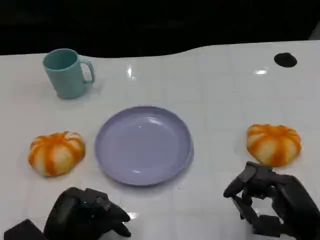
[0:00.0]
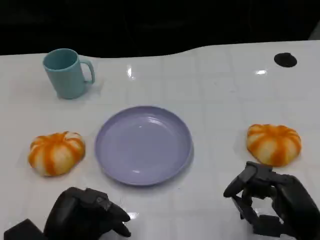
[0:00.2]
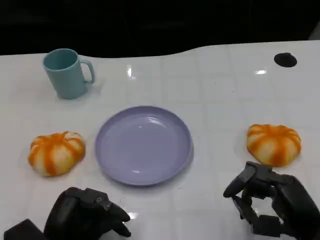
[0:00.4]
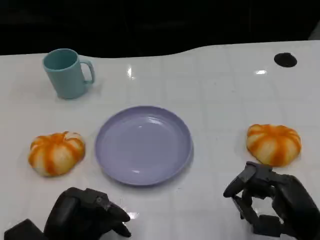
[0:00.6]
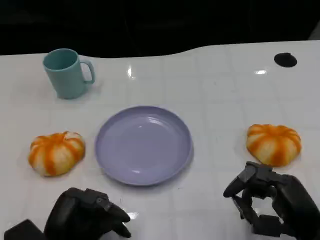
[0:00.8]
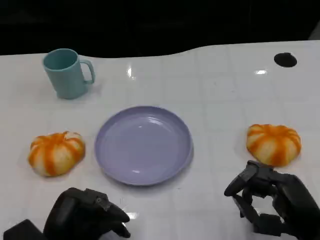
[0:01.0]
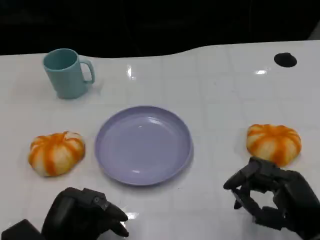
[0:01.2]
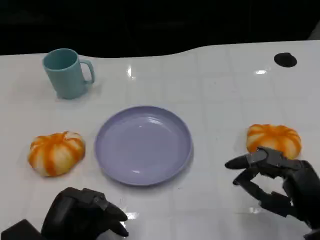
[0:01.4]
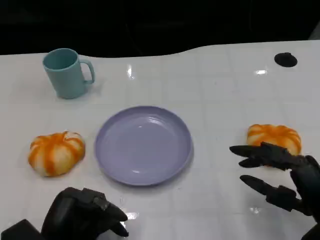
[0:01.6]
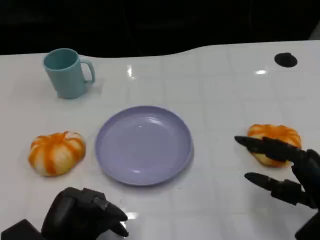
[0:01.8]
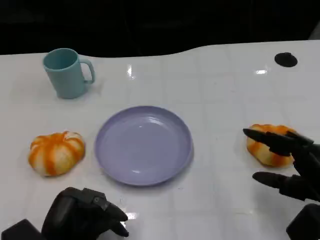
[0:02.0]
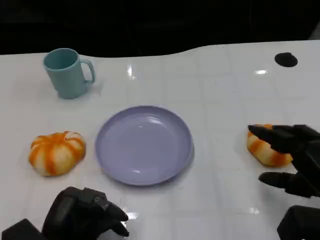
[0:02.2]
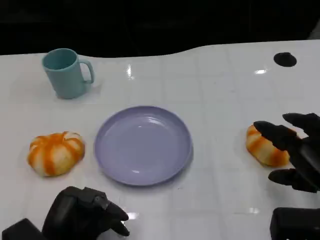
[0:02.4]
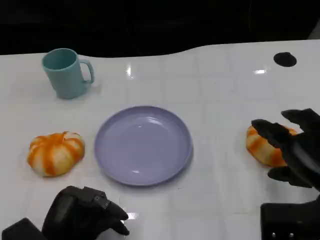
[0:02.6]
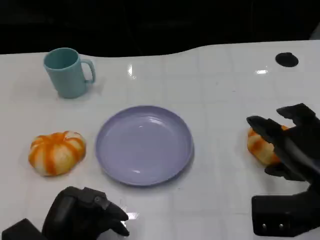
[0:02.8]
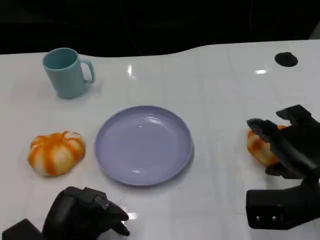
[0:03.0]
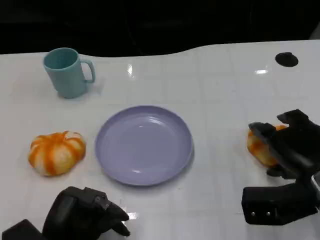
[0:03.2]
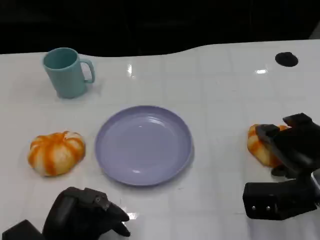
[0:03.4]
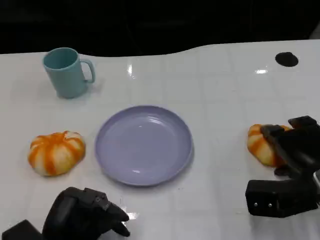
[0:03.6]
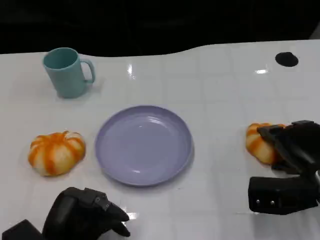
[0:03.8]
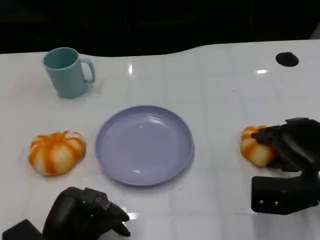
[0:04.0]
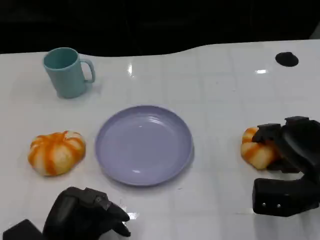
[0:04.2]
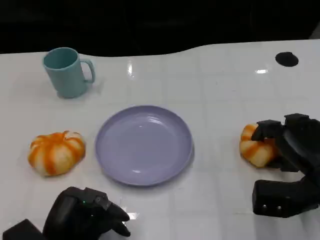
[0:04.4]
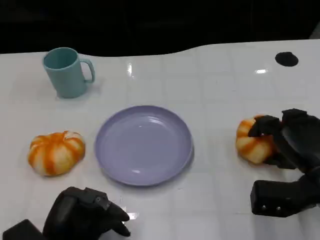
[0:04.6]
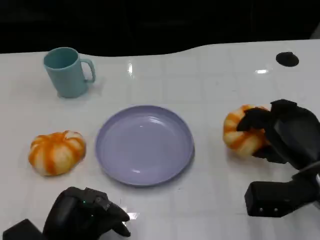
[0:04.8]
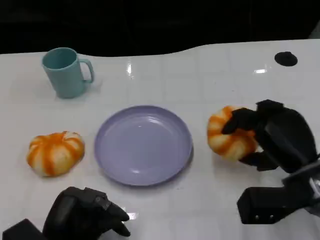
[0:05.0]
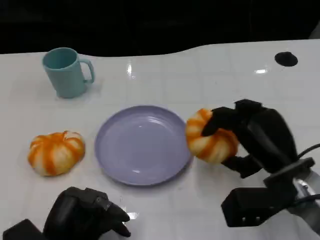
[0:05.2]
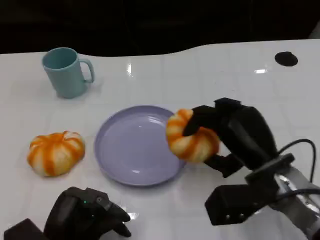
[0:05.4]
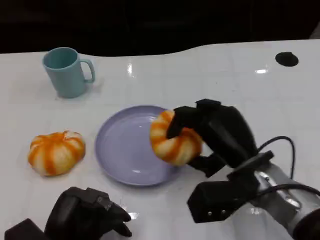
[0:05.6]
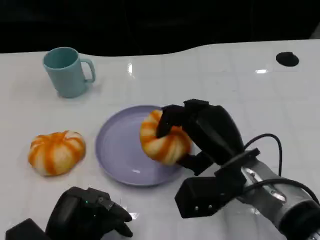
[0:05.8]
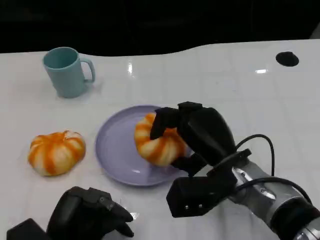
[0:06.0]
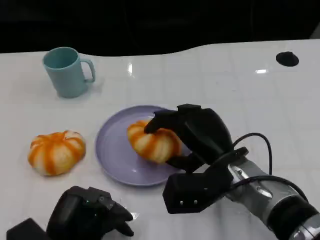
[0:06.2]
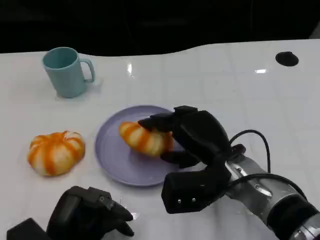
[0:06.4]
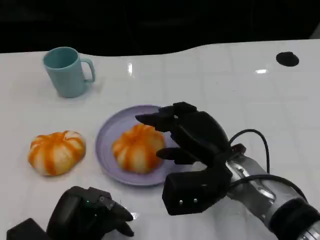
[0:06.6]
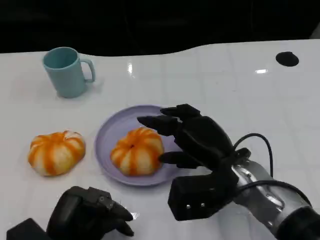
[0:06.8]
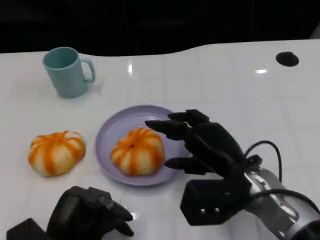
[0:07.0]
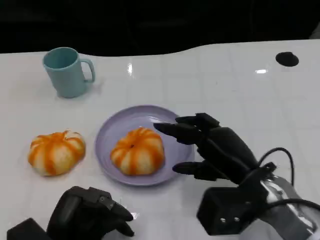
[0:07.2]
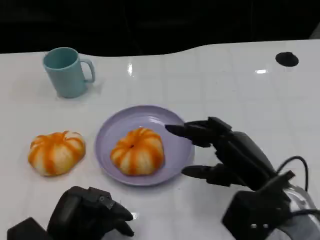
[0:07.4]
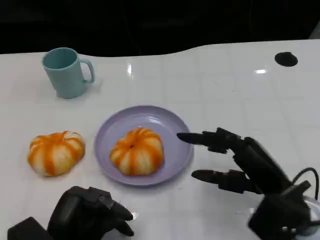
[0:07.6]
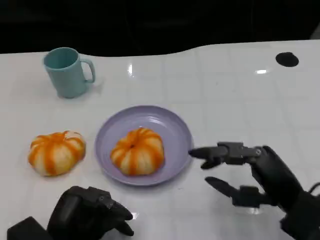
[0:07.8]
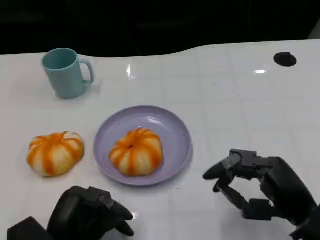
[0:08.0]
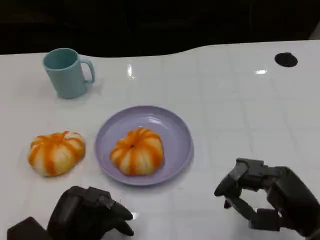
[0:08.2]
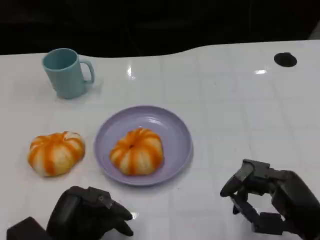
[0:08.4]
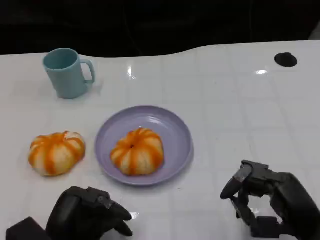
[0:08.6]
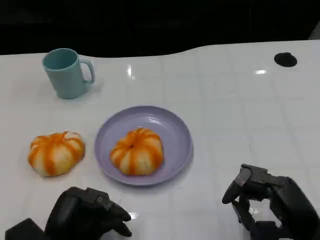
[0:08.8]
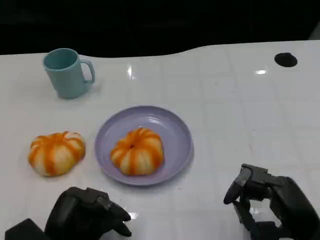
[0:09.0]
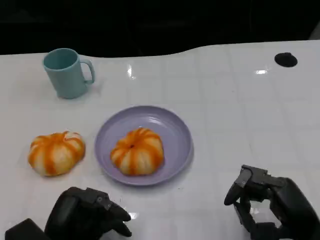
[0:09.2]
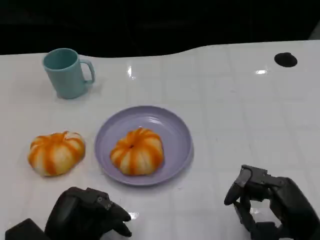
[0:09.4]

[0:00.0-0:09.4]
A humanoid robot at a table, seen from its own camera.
Task of the whole recording: Grasp the bread from the table and place it into the plate.
0:00.0 to 0:01.6: The hands stay close to where they were, moving slightly.
0:01.6 to 0:03.2: The right hand shifts some 5 cm forward.
0:04.8 to 0:06.2: The right hand heads to the left, covering about 15 cm.
0:06.2 to 0:07.8: The right hand heads to the right and backward, covering about 15 cm.
0:07.8 to 0:09.4: There are only small adjustments of the hands.
